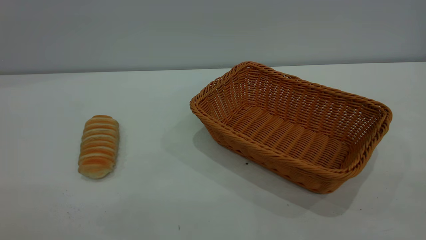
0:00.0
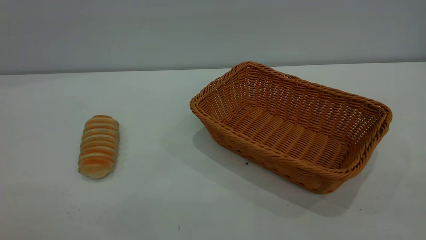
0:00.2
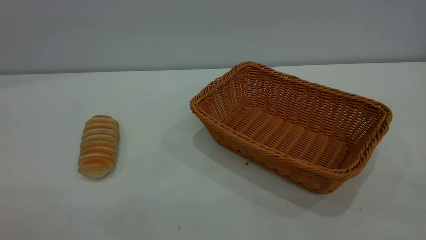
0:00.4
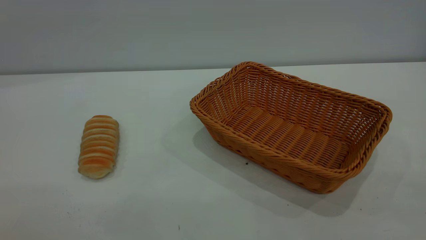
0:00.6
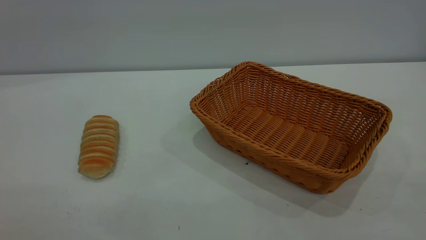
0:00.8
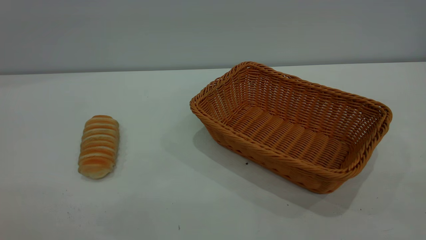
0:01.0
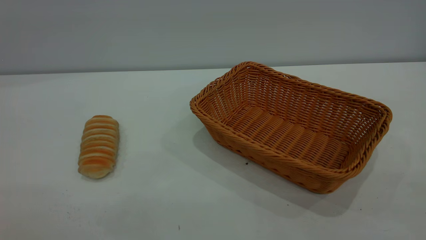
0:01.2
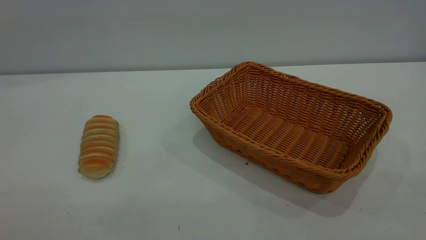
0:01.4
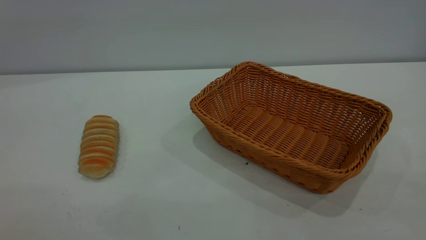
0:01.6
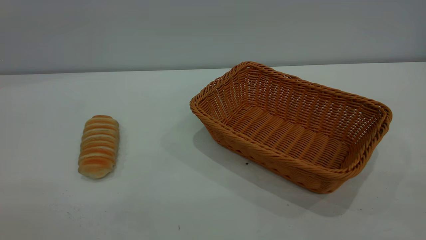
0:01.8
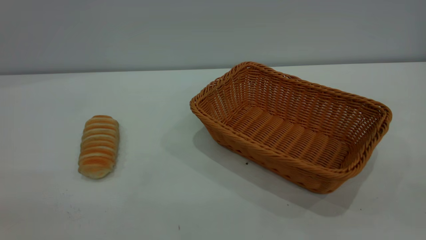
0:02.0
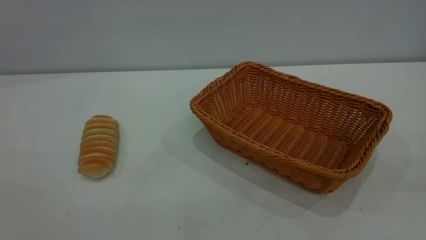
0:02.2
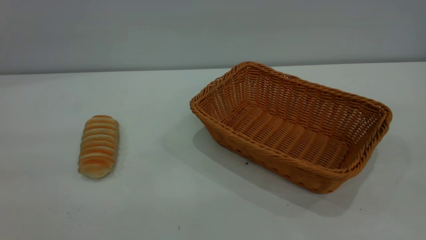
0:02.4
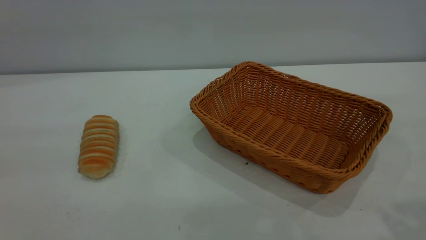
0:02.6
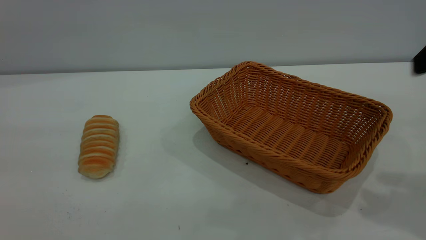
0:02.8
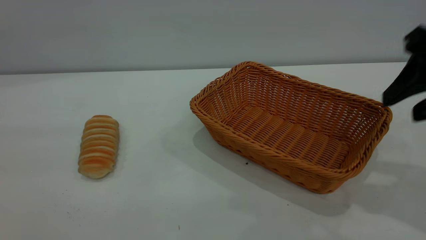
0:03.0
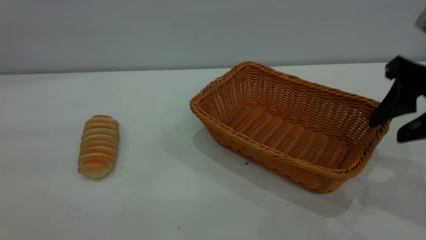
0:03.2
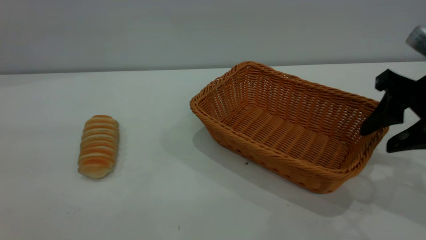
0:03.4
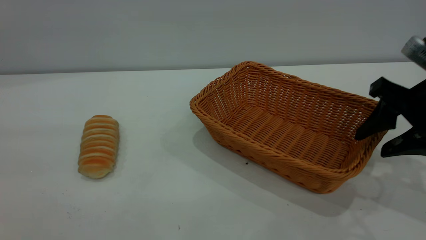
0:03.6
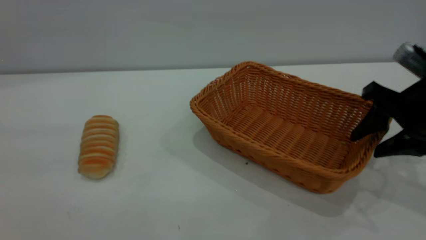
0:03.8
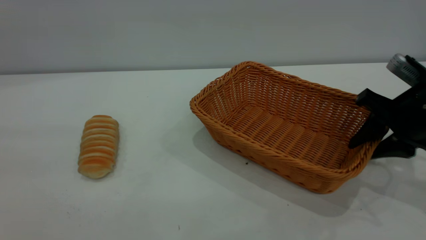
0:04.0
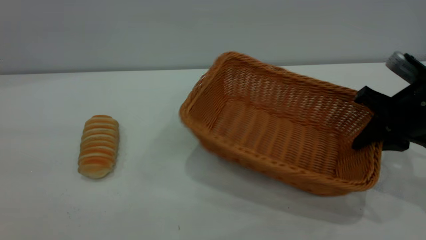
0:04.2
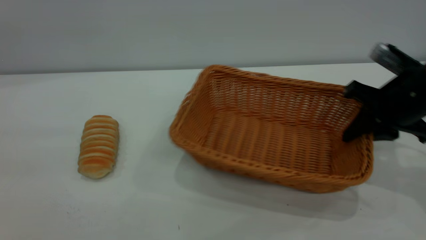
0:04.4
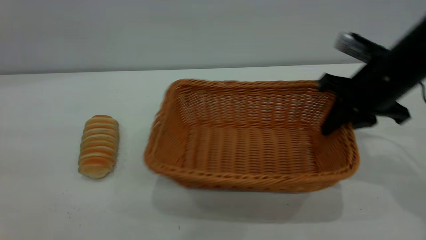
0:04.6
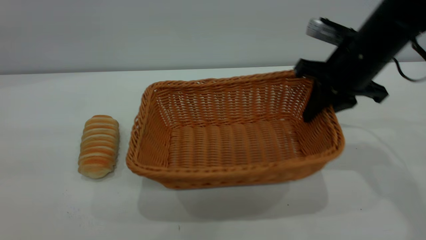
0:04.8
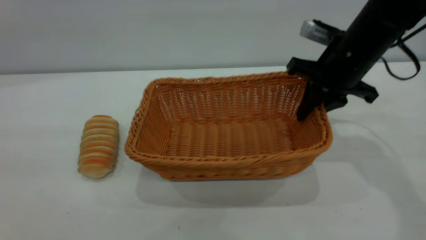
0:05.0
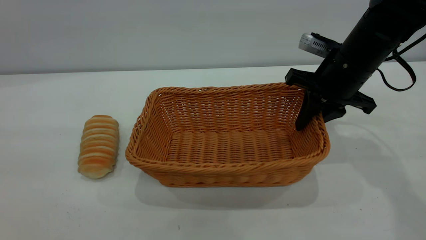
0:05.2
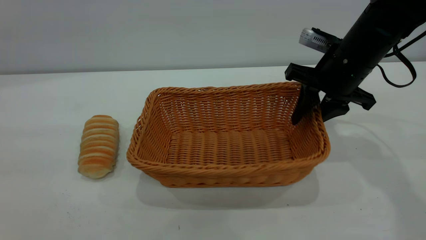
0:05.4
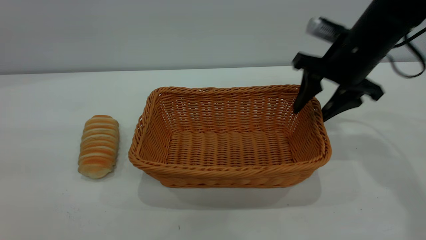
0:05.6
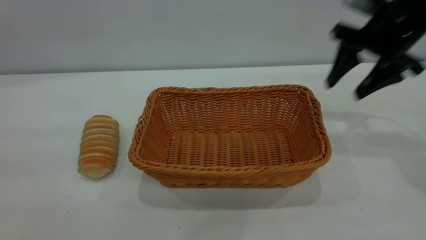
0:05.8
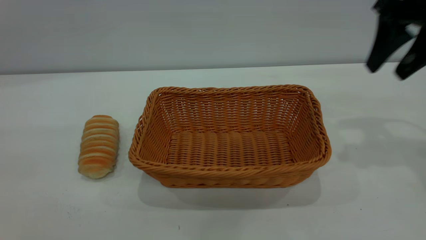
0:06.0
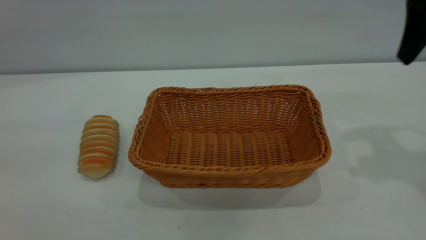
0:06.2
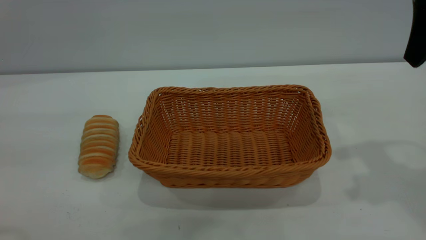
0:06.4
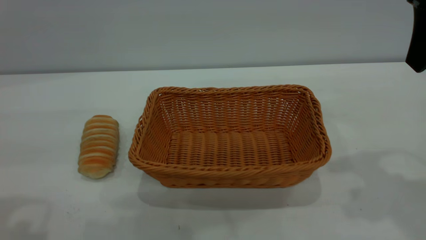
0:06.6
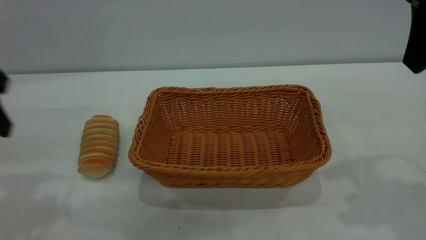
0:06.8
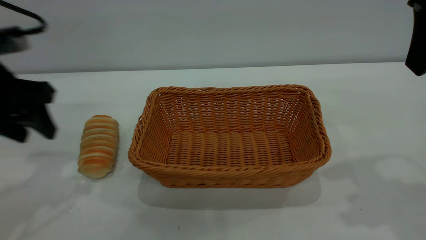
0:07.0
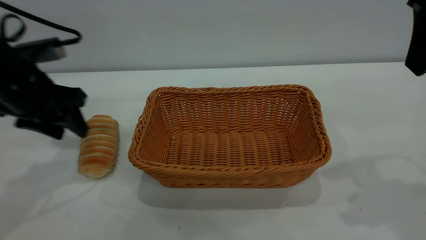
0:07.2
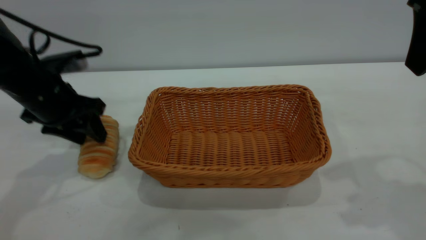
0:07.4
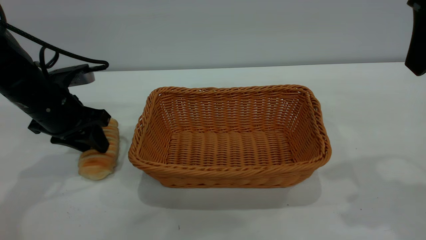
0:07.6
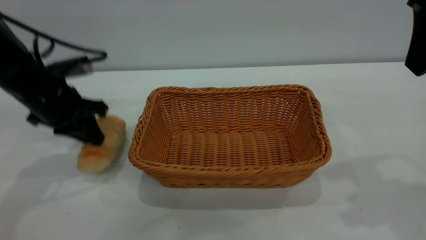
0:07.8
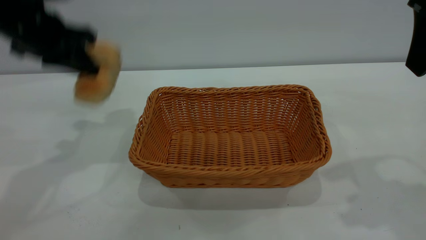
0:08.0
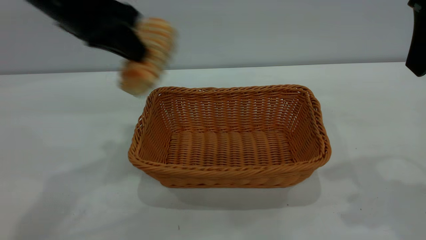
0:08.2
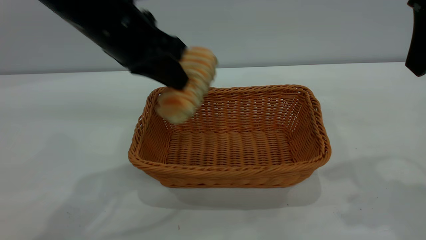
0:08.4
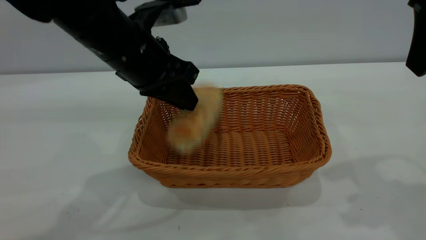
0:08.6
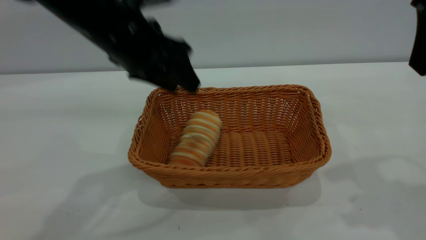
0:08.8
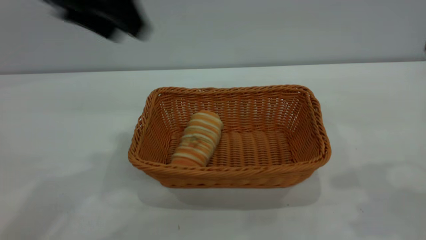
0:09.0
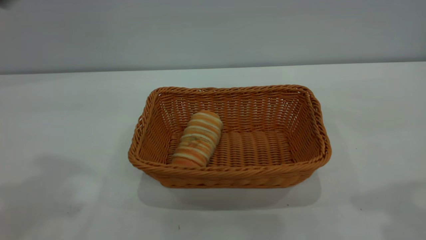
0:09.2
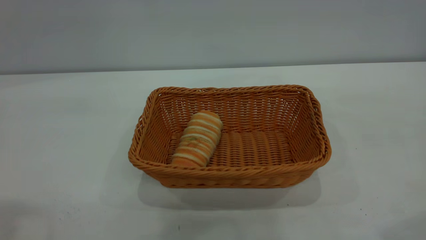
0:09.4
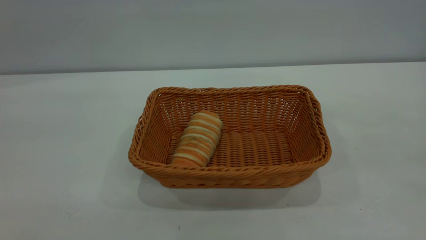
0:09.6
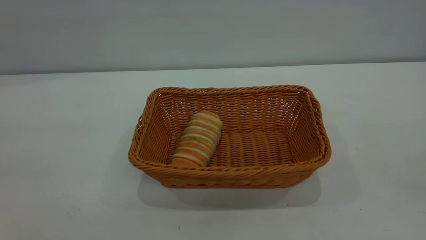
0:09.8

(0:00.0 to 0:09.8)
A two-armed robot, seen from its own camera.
Task of the whole recording: One hand grasps the yellow basket and places it in the middle of the table, while the other hand picks up the long bread and puts it into the yellow basket.
Step, 0:00.0 - 0:05.6: Move the basket to the center of view.
Step, 0:08.0 - 0:08.8: place the bread into the basket.
0:00.0 - 0:01.4: Neither gripper changes place.
0:02.8 - 0:04.2: The right gripper shifts about 15 cm downward and forward, and closes its fingers.
0:04.2 - 0:05.6: The right gripper moves forward, to the left and upward, some 10 cm, and opens its fingers.
0:05.6 - 0:07.0: The left gripper shifts roughly 30 cm forward and downward, while the right gripper is displaced upward and backward by some 20 cm.
0:07.0 - 0:08.4: The left gripper shifts approximately 15 cm to the right, and closes.
0:08.4 - 0:09.8: The right gripper heads backward, covering approximately 20 cm; the left gripper shifts some 40 cm backward, upward and to the left, and opens.
